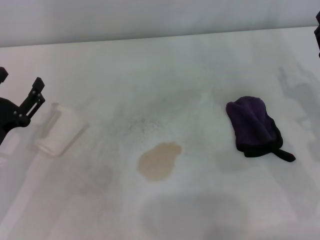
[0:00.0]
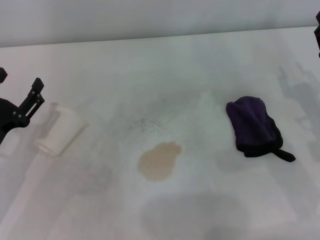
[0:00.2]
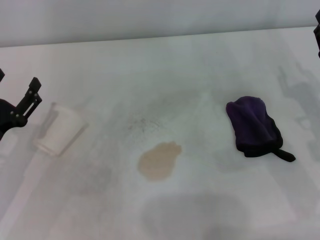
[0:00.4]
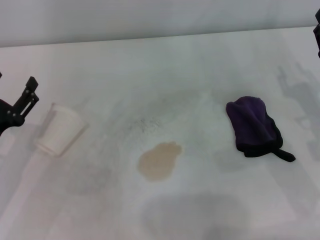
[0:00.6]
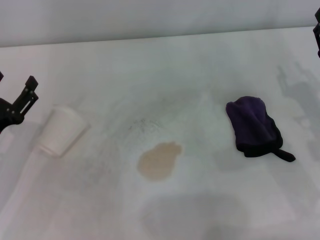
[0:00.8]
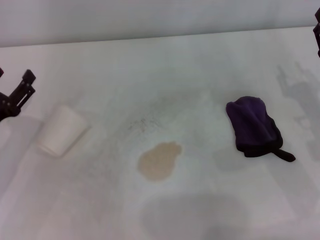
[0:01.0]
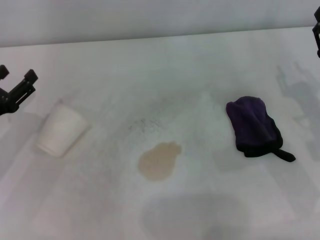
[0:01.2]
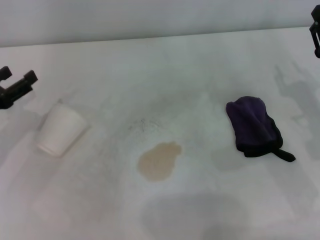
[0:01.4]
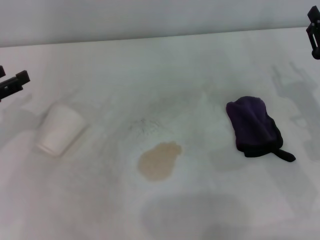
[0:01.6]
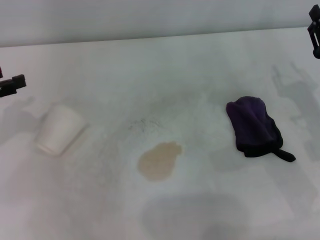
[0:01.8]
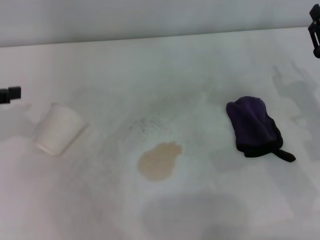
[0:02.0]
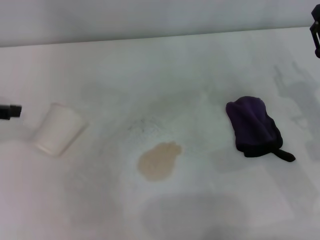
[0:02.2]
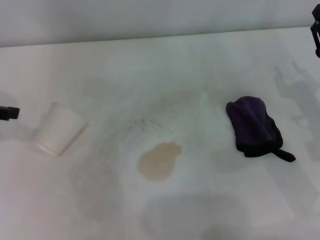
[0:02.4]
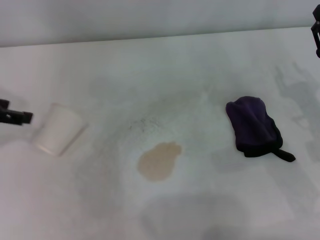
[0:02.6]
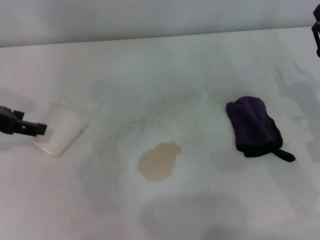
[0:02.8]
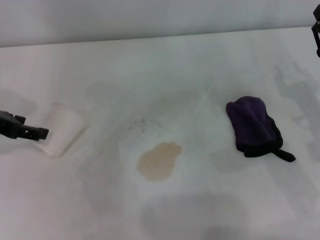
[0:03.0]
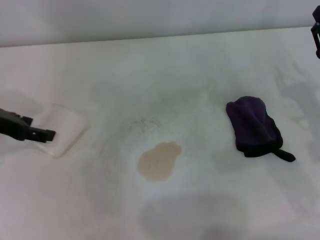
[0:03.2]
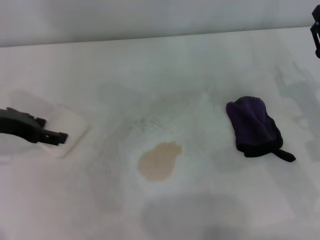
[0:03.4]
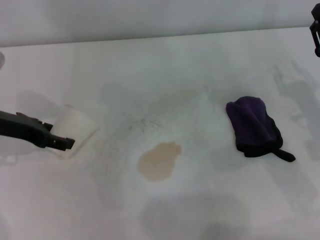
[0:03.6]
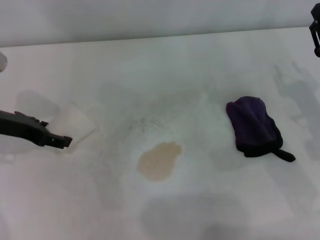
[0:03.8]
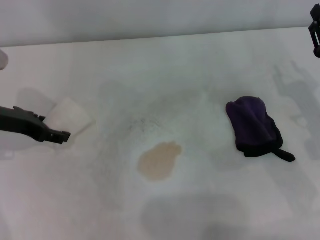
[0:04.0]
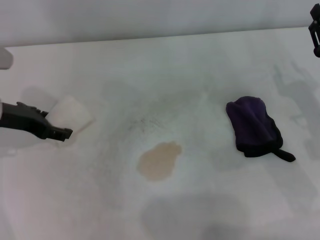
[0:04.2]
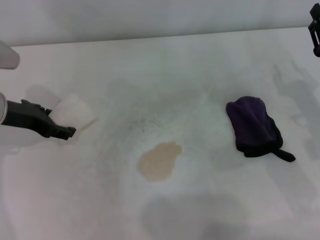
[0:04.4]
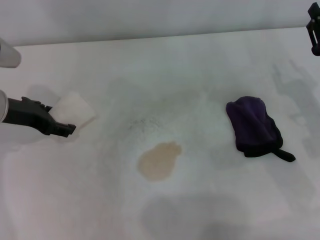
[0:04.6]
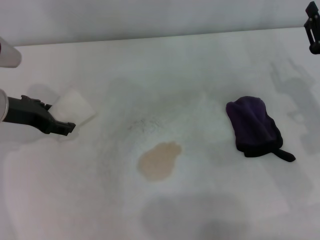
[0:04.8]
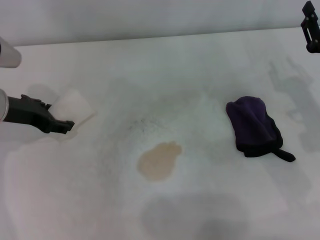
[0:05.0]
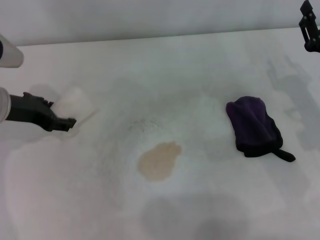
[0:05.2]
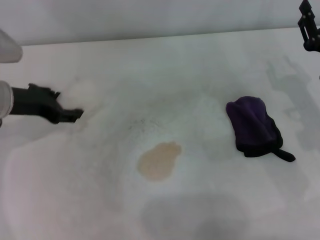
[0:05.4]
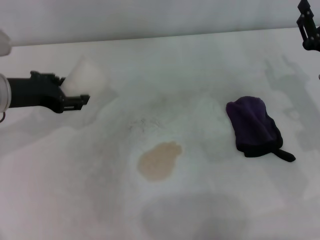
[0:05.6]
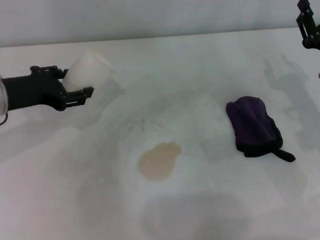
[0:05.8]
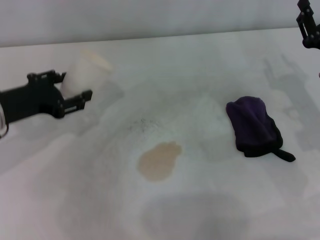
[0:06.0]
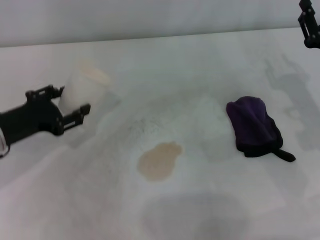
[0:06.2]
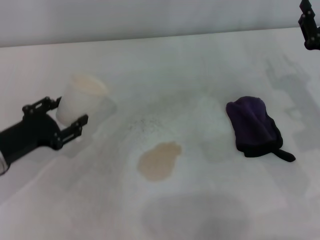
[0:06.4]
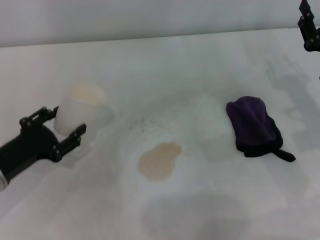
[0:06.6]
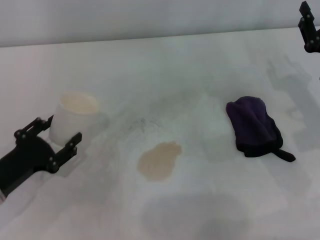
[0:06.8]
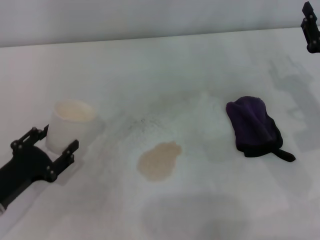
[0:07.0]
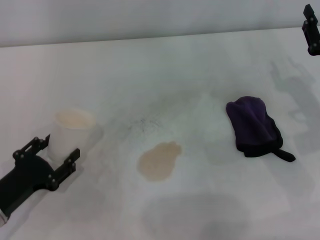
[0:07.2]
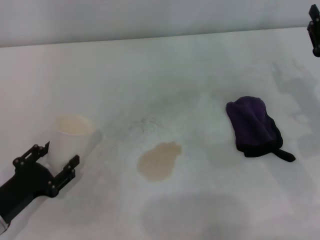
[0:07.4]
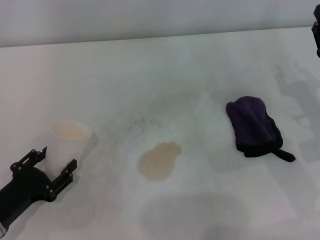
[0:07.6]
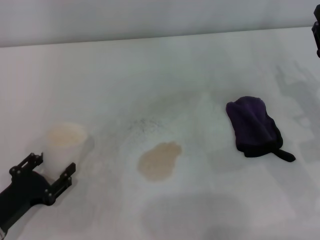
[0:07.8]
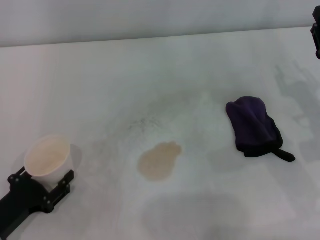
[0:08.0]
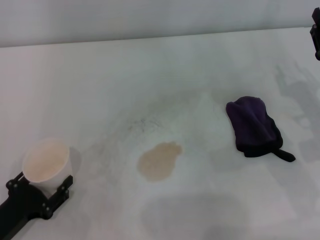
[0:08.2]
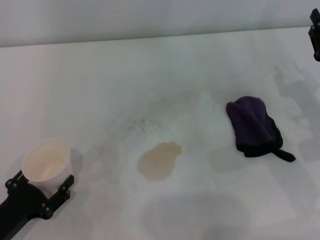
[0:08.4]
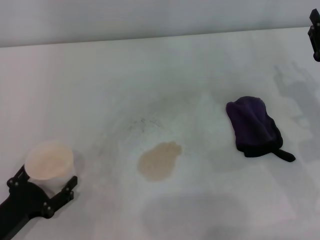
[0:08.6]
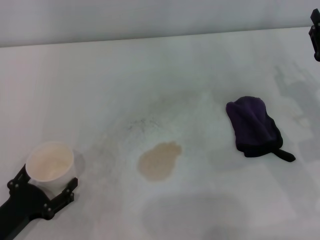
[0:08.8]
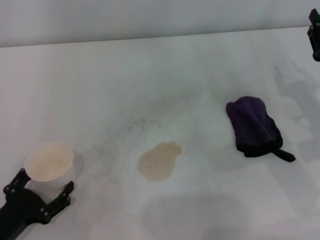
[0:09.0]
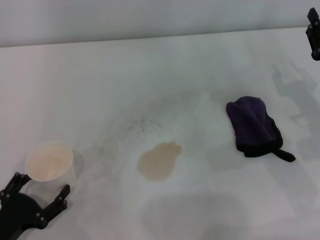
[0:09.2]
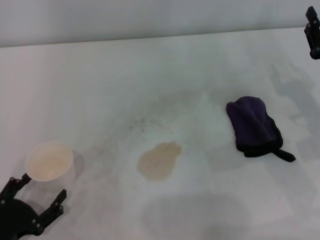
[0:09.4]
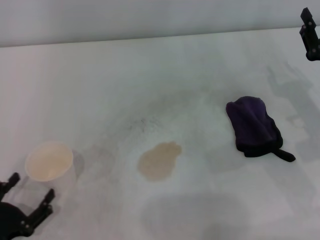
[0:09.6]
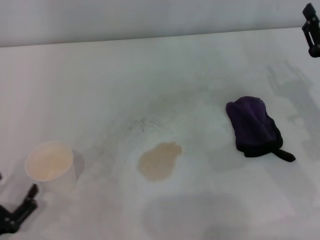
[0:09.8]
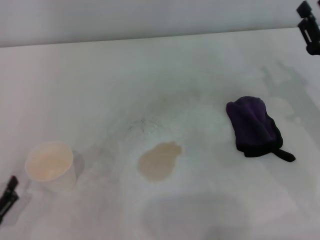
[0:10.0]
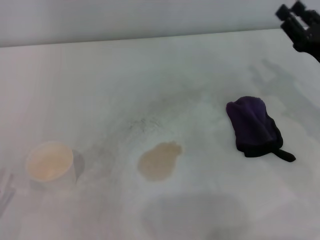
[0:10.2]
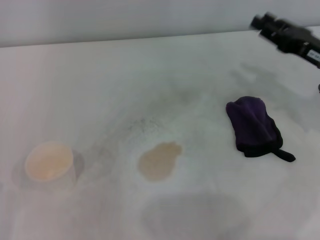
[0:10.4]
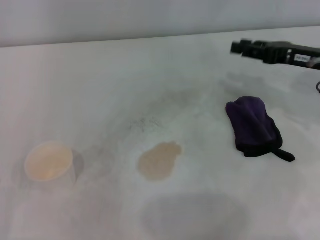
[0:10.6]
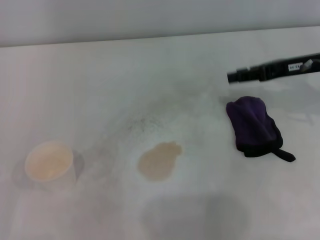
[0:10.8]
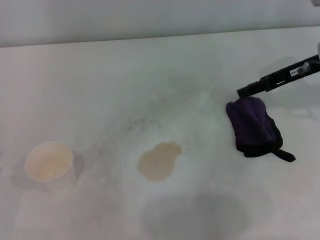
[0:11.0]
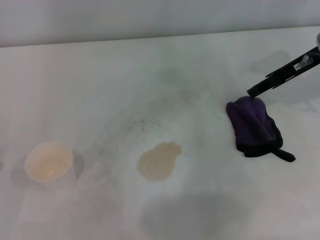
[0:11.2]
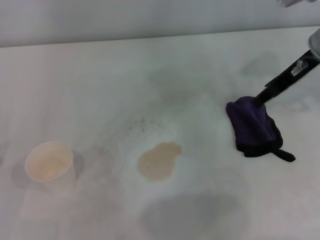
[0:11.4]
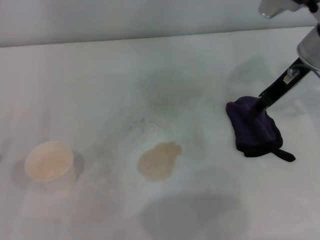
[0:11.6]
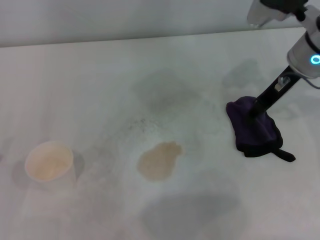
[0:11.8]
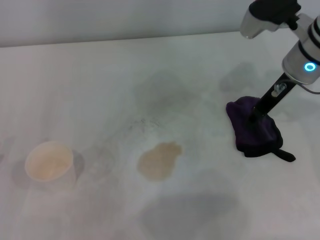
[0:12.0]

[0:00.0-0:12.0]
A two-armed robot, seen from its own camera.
Step, 0.0 to 3.6 s: Grasp the paper cup with the left gripper.
Step, 3.8 to 8.6 s: Stand the paper cup upright with the left gripper.
0.0 to 1.6 s: The left gripper moves upward, to the left and forward, roughly 10 cm.
1.6 to 3.0 s: The left gripper shifts by roughly 5 cm.
3.0 to 4.4 s: The left gripper shifts by approximately 5 cm.
4.4 to 6.0 s: The left gripper closes up.
6.0 to 7.6 s: The left gripper heads backward and downward, covering about 20 cm.
7.6 to 9.0 s: The left gripper opens.
9.0 to 10.4 s: The left gripper moves to the left, some 5 cm. Meanwhile the right gripper travels forward by approximately 5 cm.
10.4 to 12.0 s: The right gripper heads to the left, forward and upward, covering some 10 cm.

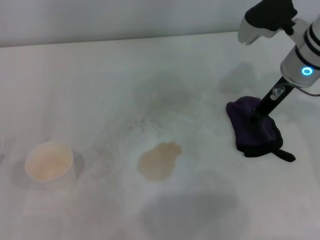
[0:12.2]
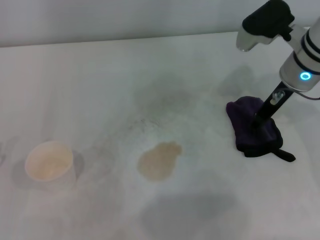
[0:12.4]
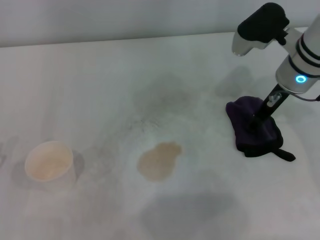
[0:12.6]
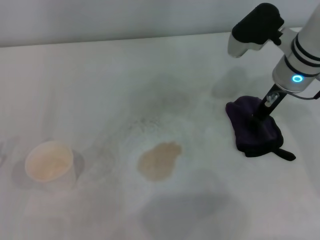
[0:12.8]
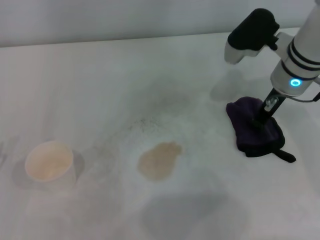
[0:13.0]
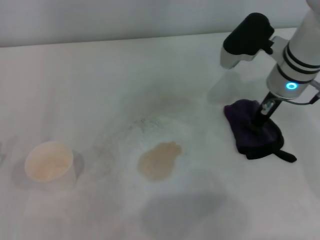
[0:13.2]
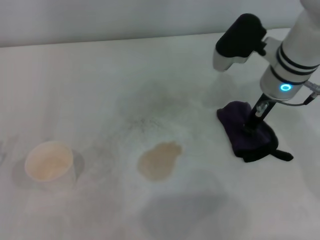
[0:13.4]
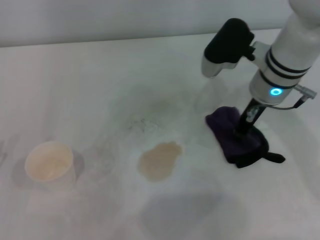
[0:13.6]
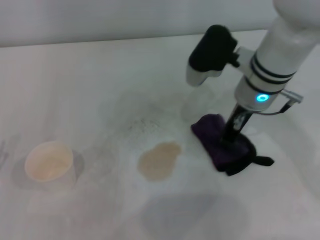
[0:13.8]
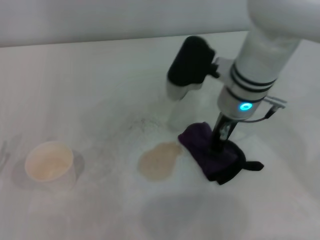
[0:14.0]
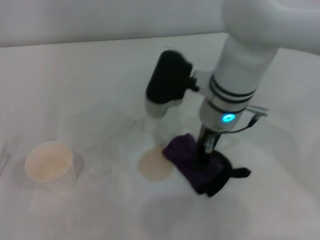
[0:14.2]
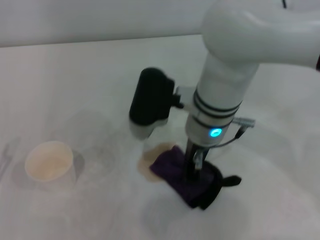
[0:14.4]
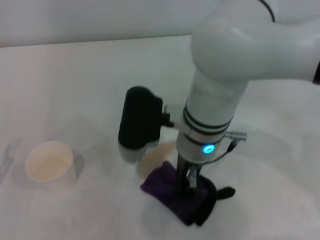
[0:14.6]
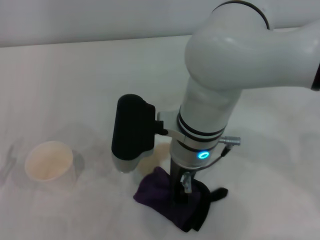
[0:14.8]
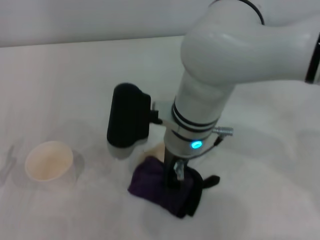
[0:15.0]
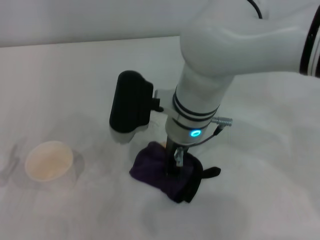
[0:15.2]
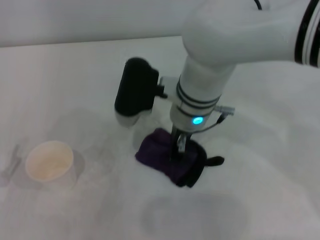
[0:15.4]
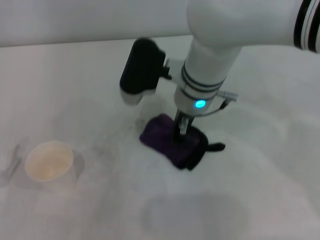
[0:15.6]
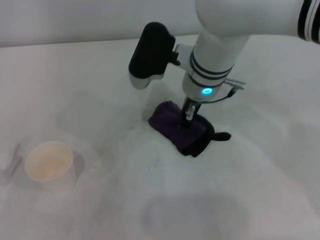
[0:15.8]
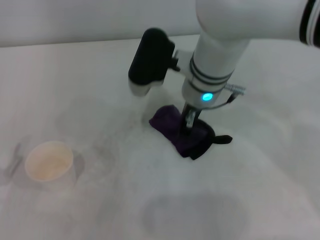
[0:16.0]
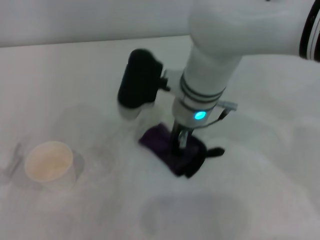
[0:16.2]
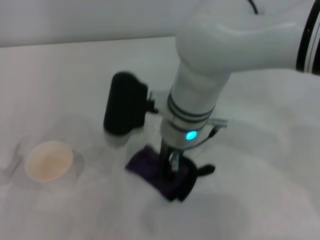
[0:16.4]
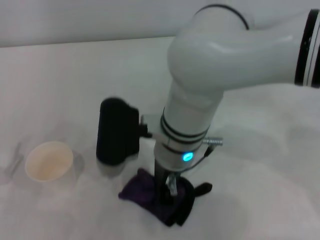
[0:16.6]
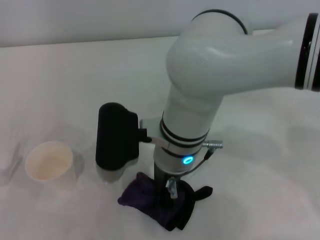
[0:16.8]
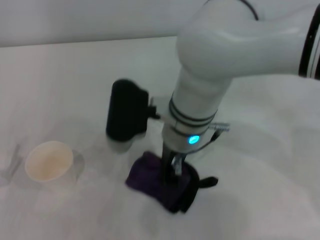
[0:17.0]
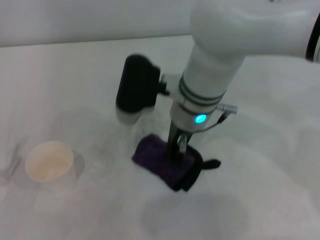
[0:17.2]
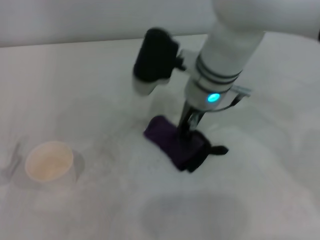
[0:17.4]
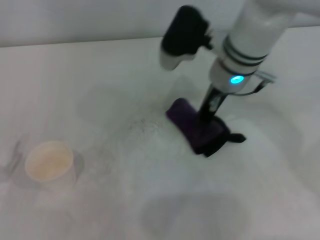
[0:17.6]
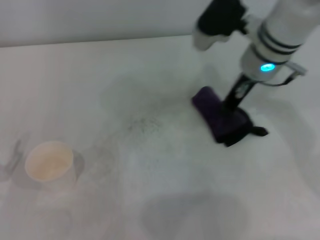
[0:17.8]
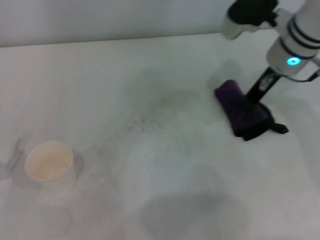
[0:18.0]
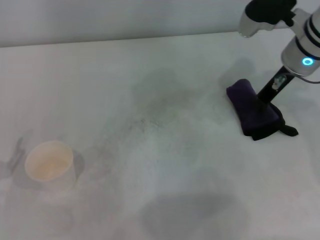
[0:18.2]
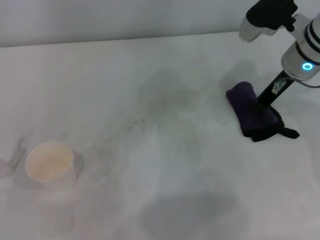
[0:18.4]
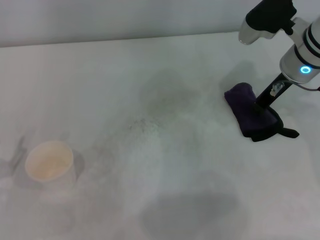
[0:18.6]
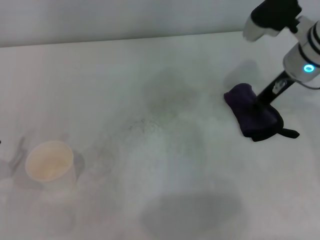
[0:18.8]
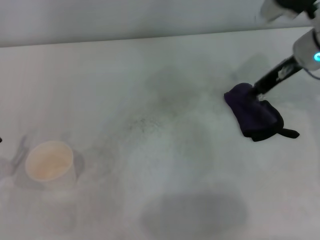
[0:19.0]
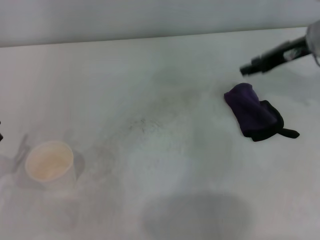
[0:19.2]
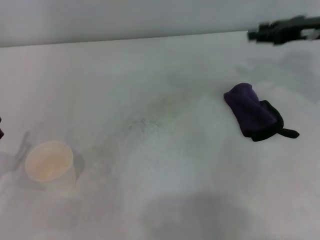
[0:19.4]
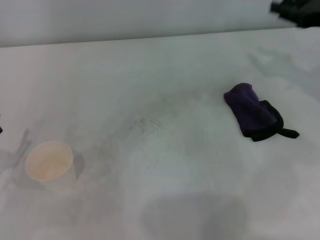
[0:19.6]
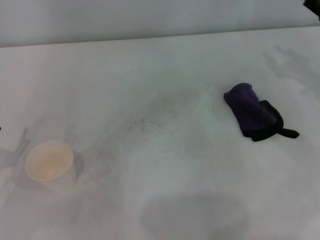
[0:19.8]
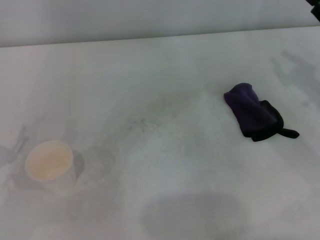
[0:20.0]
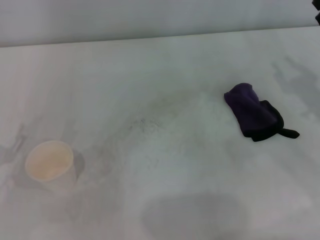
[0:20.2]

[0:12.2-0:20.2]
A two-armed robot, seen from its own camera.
Step, 13.4 to 17.8 s: Wipe the stains off the table with the right gripper.
Step, 18.0 to 18.6 s: Place the rag on the table with the right gripper.
12.2 to 13.8 s: The right gripper heads to the left, covering roughly 10 cm, and closes its fingers.
13.8 to 15.4 s: The right gripper shifts roughly 10 cm to the left.
17.0 to 18.6 s: The right gripper moves to the right, about 20 cm.
18.6 to 20.2 s: The right gripper travels backward and to the right by about 15 cm, and opens up.

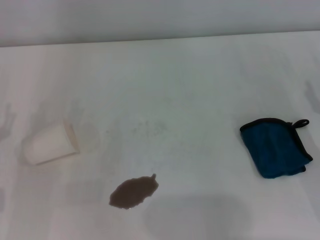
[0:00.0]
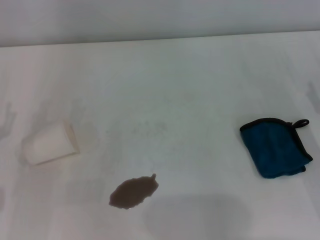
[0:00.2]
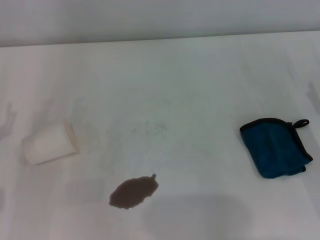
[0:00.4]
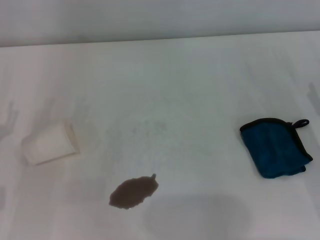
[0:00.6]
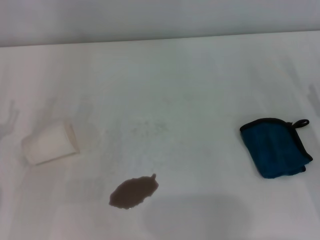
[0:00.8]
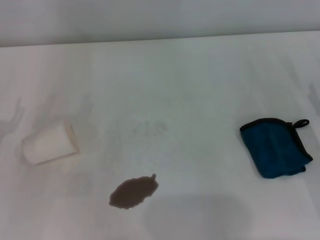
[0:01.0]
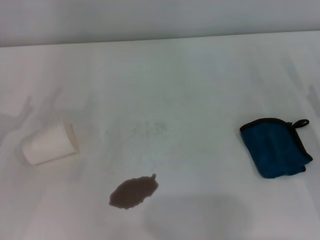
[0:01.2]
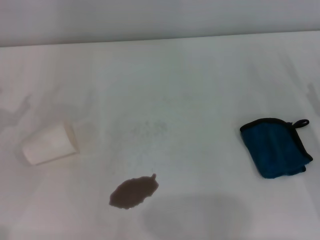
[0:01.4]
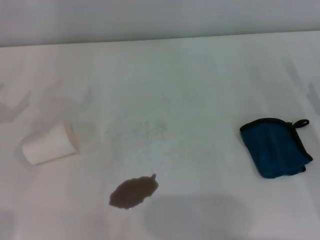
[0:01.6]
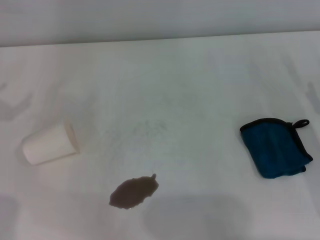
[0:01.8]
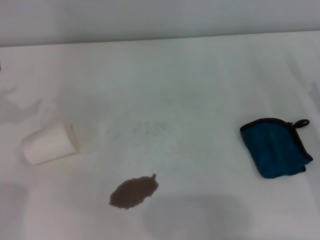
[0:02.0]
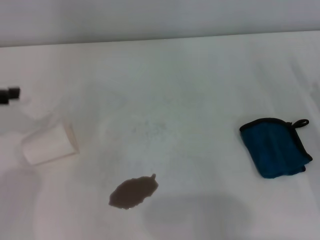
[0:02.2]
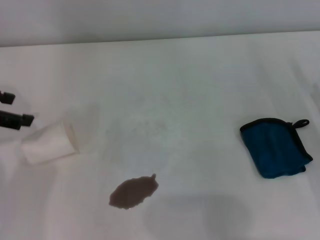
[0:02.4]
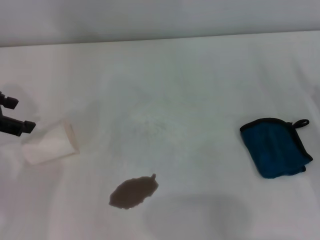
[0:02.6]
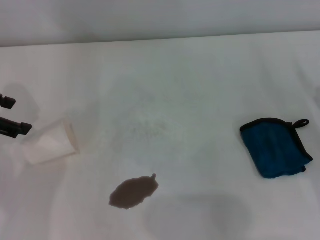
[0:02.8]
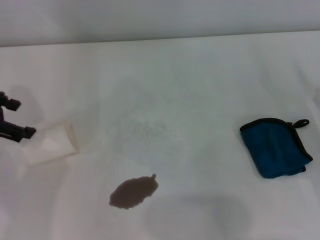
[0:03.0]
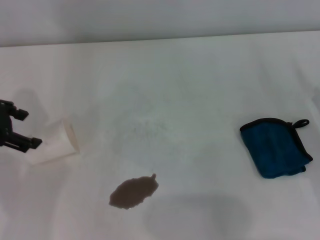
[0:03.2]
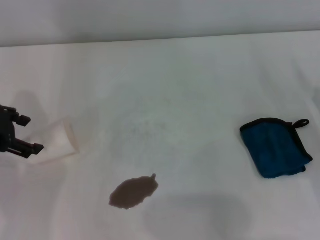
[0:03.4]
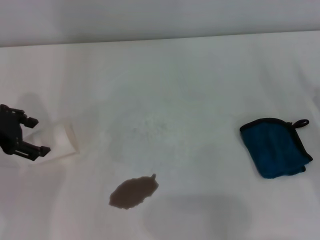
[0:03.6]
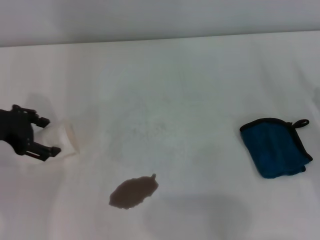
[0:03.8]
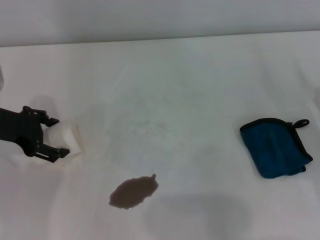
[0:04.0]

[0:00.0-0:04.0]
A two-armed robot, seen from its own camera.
1.4 to 2.6 s: The left gripper moves upward and forward, approximately 15 cm.
2.6 to 4.0 s: The left gripper goes roughly 5 cm downward.
